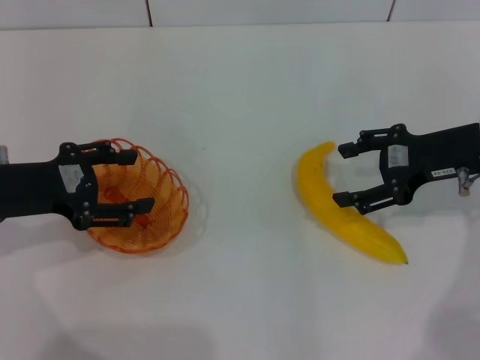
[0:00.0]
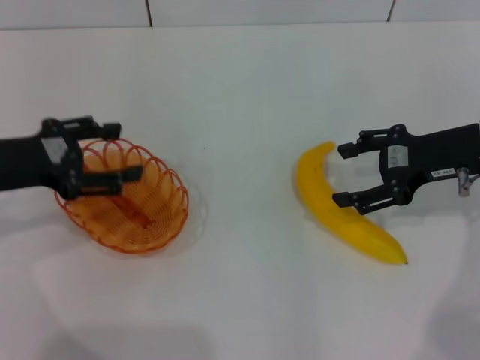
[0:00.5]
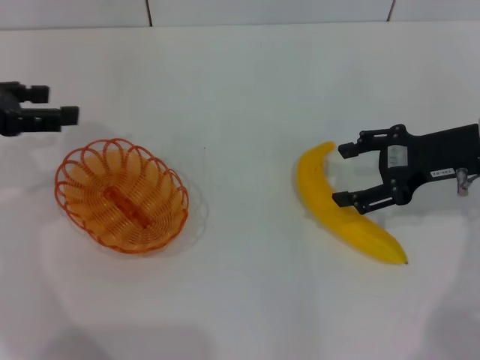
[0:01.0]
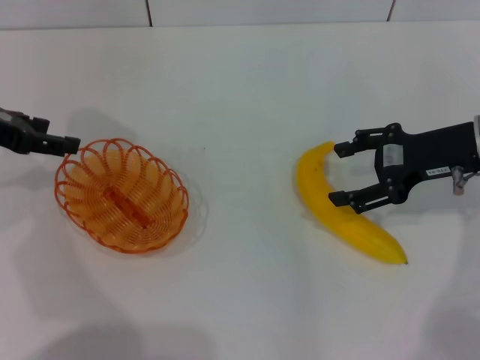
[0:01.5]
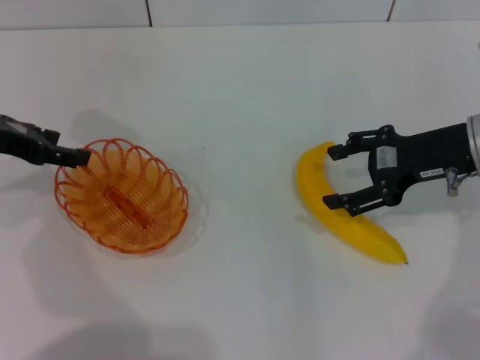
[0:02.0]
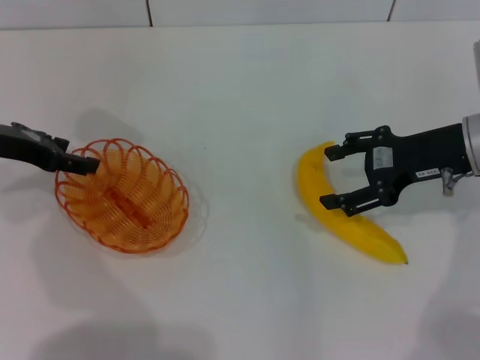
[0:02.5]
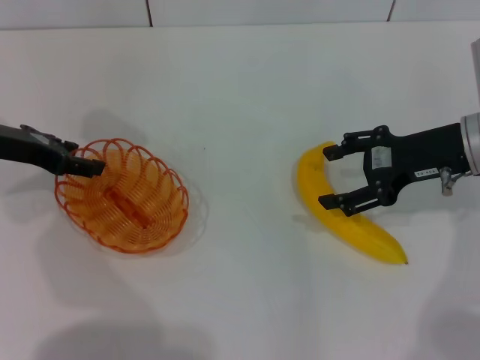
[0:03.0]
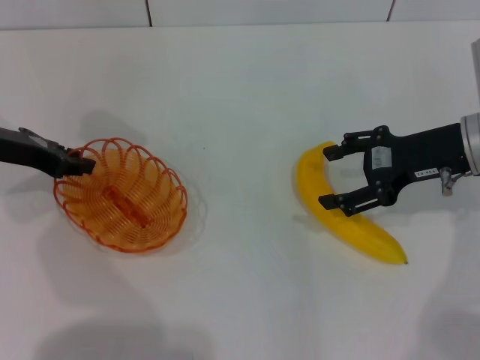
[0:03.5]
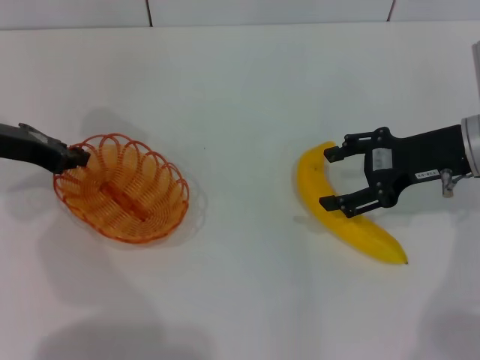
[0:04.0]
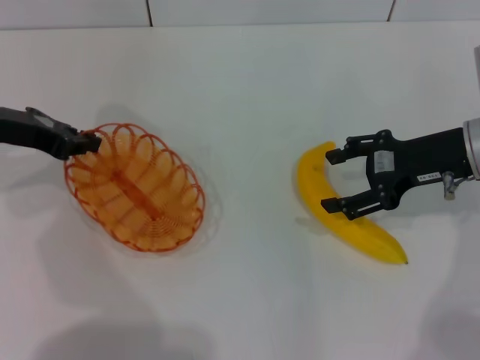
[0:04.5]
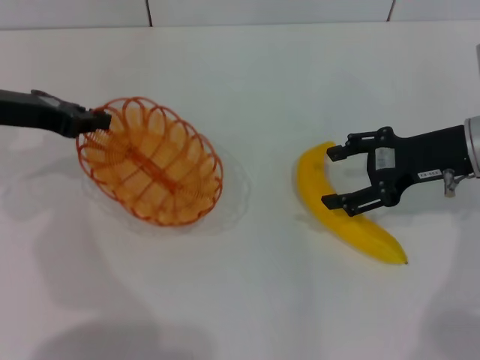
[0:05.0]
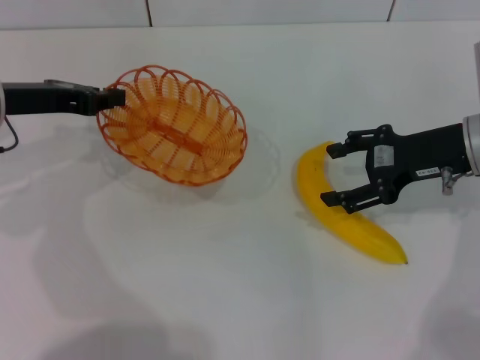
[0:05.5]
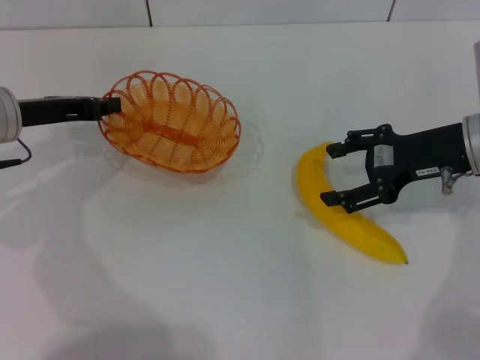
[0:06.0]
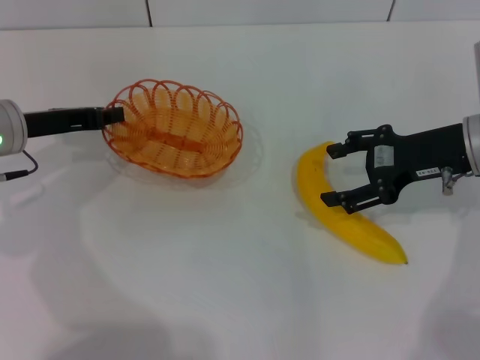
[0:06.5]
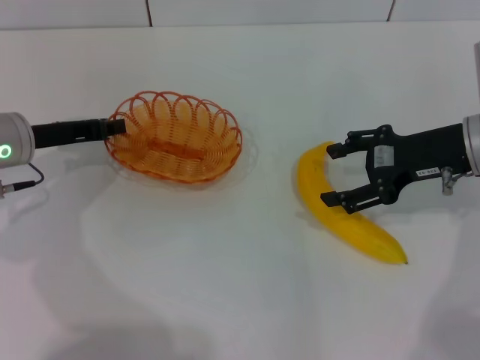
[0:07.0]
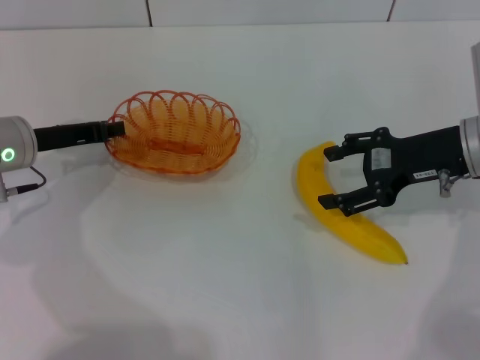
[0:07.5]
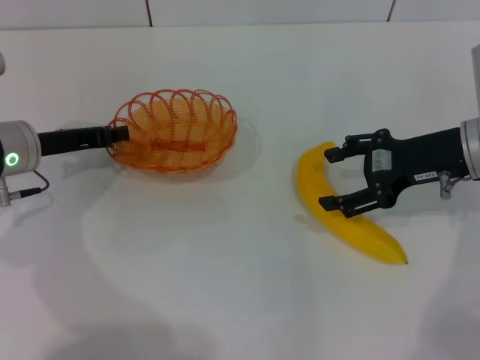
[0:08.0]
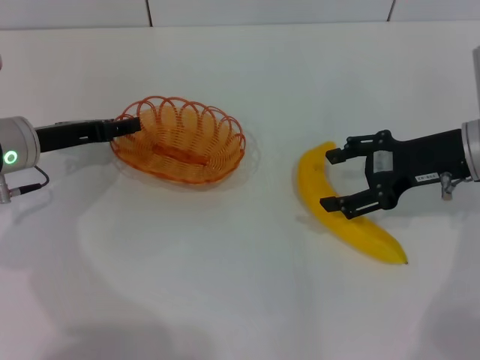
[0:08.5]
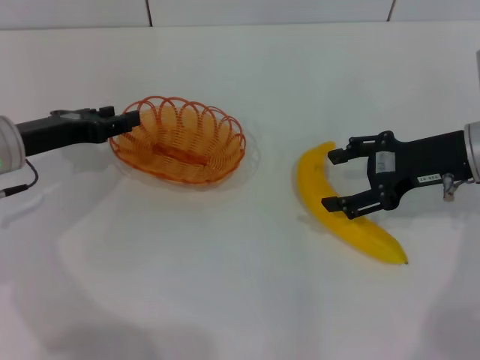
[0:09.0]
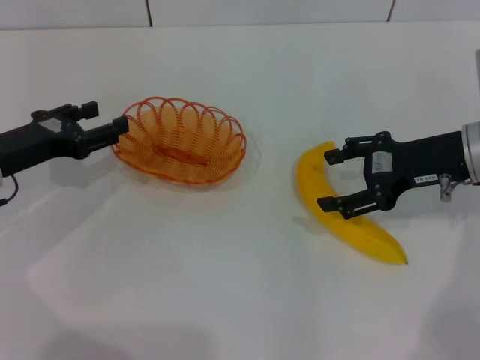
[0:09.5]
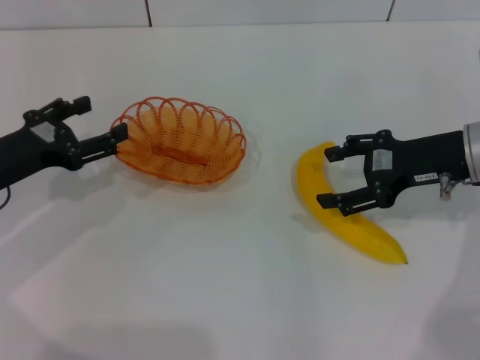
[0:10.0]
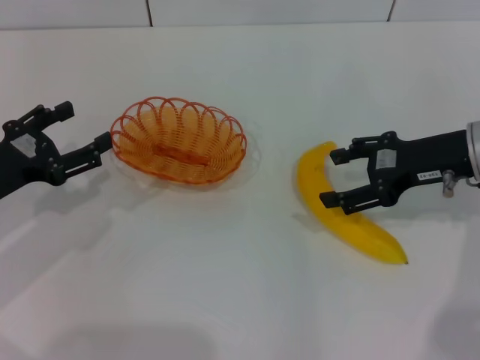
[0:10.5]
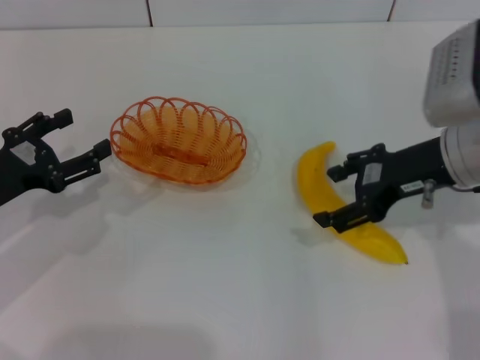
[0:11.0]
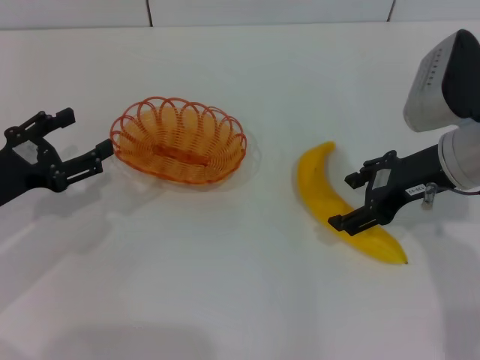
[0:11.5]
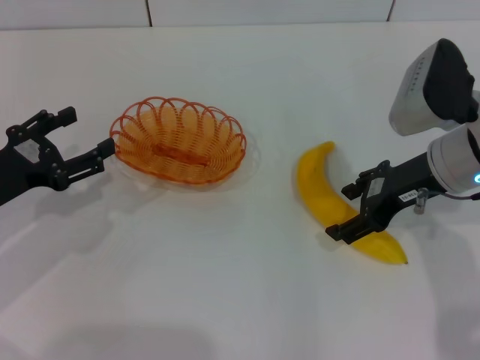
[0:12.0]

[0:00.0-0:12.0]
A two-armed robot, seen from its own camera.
Step, 0:00.0 to 0:05.0: Pick up the basket with the left gripper.
Step, 0:05.5 to 0:09.5: Place the basket in the center of view with the left gripper.
0:00.0 to 0:02.0: The left gripper shifts about 5 cm forward.
0:02.0 to 0:04.0: The left gripper closes its fingers.
0:06.0 to 0:08.0: The grippers make only small movements.
0:08.0 to 0:10.0: The left gripper heads backward, covering about 5 cm, and opens its fingers.

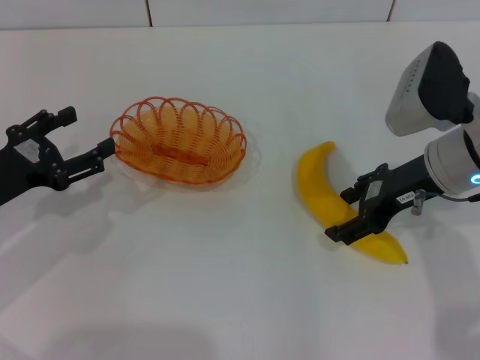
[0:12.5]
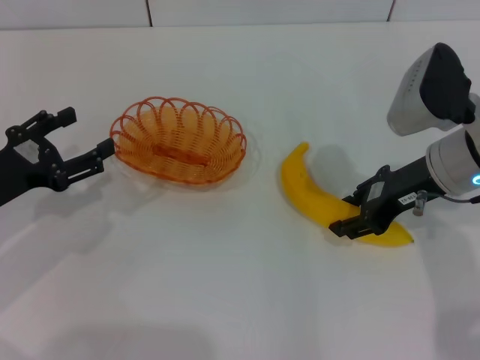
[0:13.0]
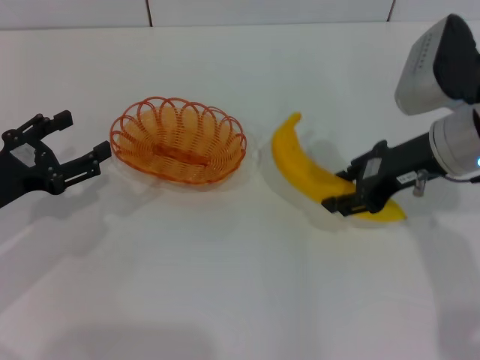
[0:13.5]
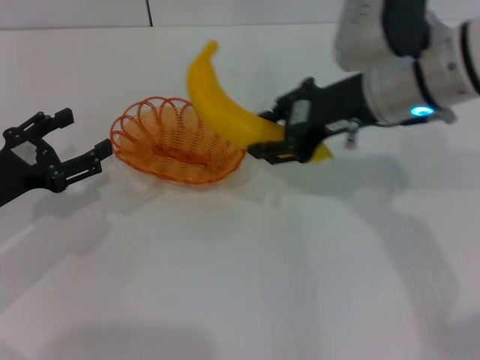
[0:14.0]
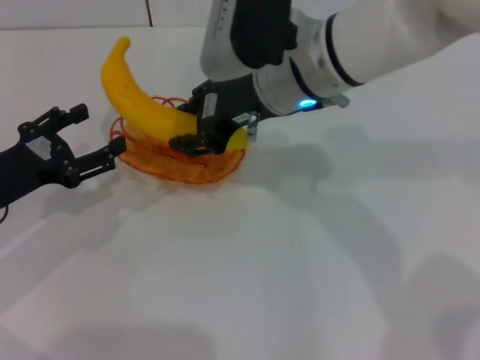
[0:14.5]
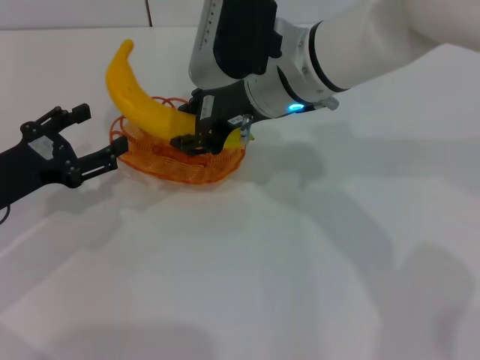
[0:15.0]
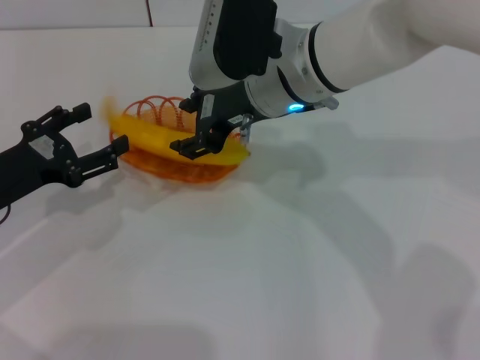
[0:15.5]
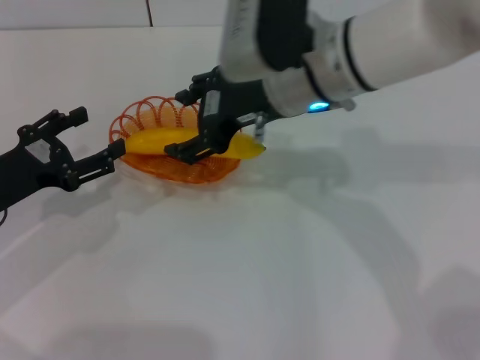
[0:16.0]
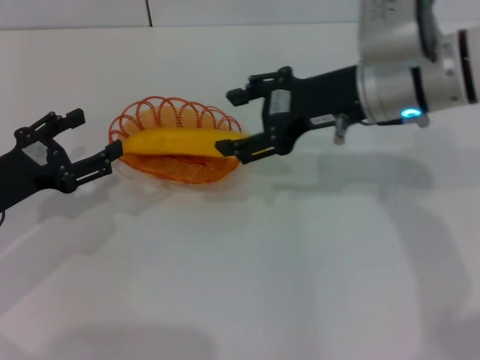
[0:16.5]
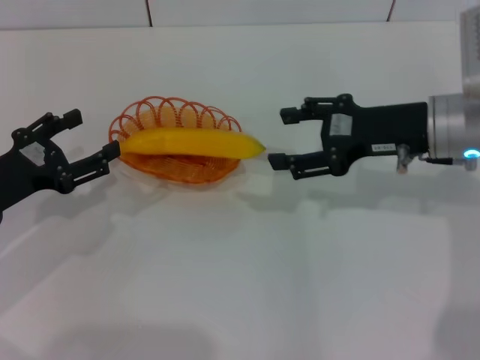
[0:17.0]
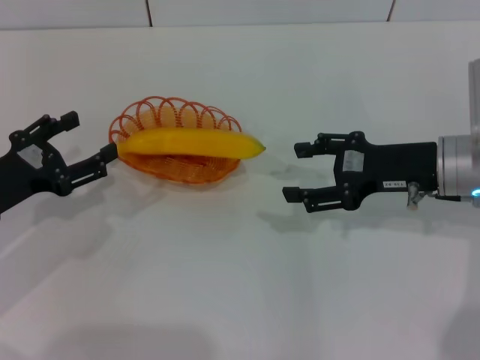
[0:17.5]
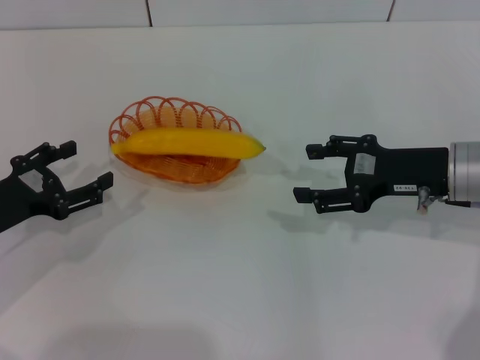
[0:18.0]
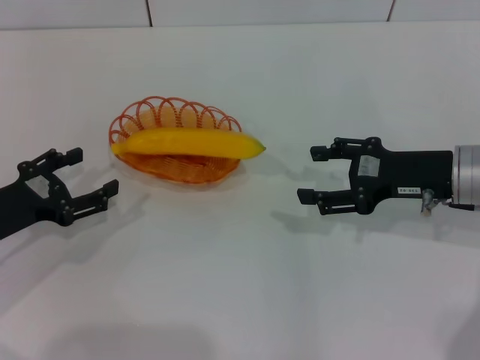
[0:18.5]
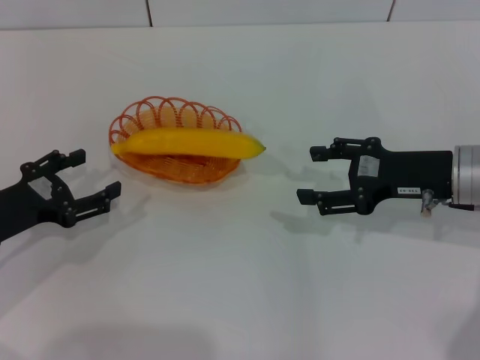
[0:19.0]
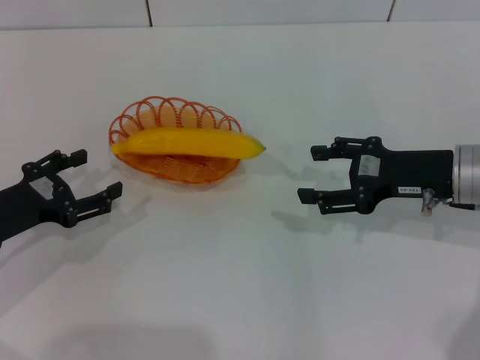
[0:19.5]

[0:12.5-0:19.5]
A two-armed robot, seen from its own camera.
Step, 0:14.0 to 0:16.5: Place the banana into the basket with the right gripper.
0:12.5 to 0:14.5: The right gripper heads to the left, covering about 15 cm, and closes its fingers.
0:14.5 to 0:16.0: The right gripper opens.
0:16.0 to 0:17.5: The right gripper heads to the right and downward, covering some 20 cm.
0:17.5 to 0:19.5: The grippers move only a little.
